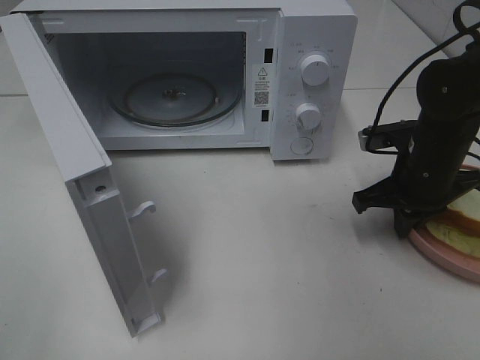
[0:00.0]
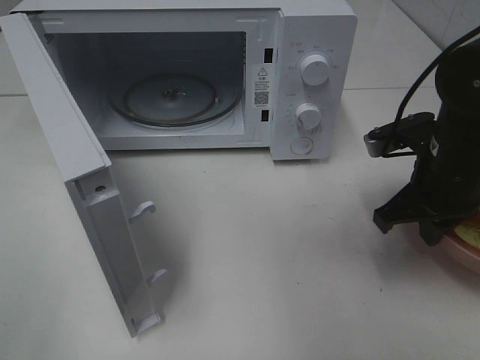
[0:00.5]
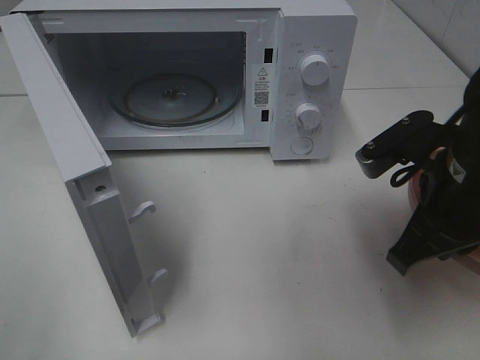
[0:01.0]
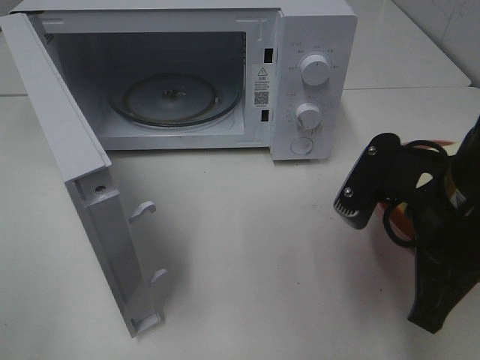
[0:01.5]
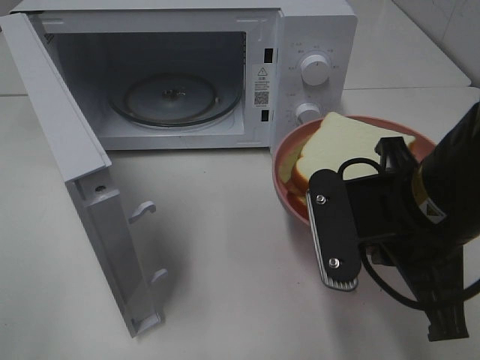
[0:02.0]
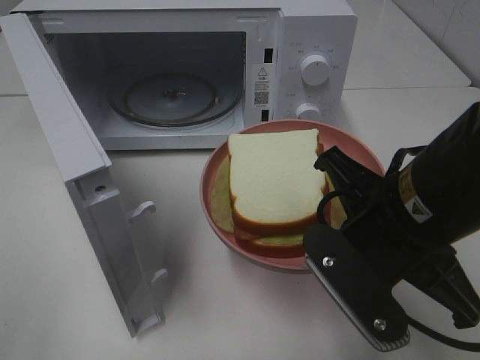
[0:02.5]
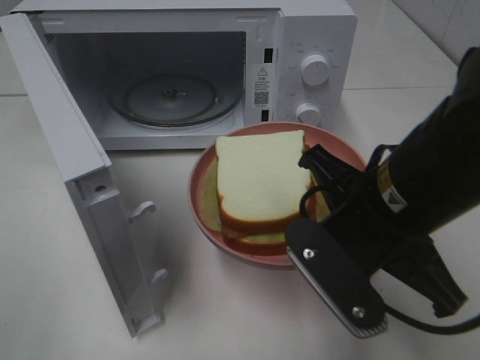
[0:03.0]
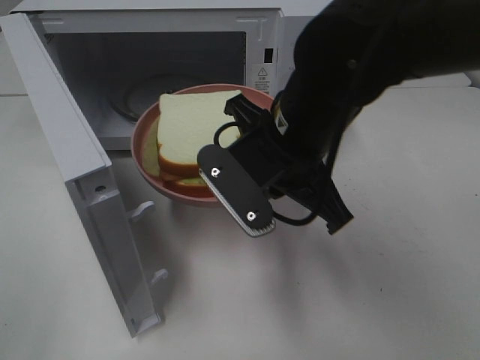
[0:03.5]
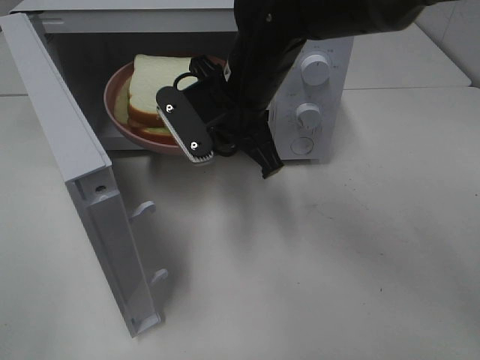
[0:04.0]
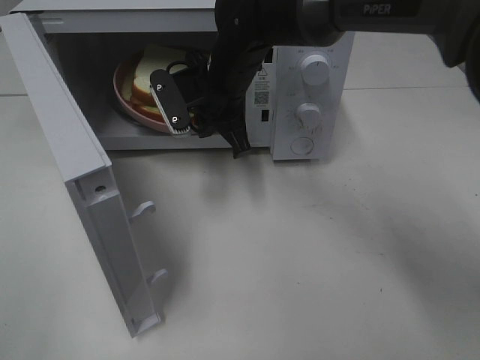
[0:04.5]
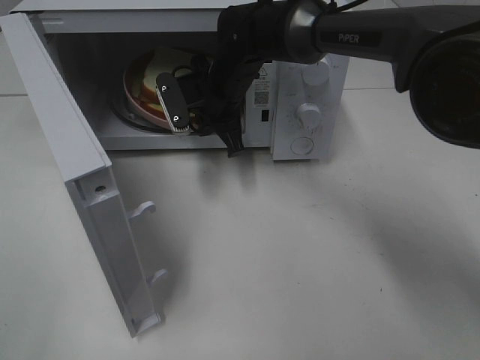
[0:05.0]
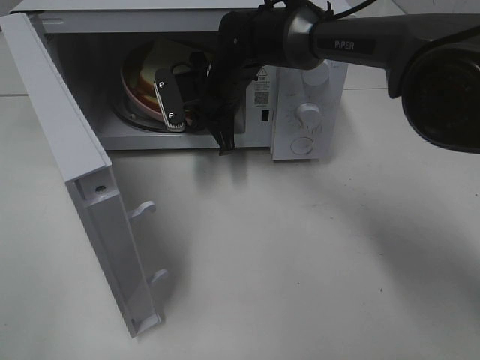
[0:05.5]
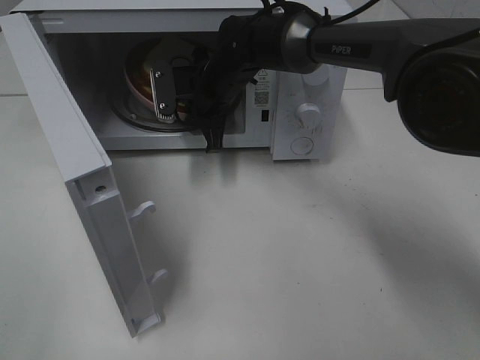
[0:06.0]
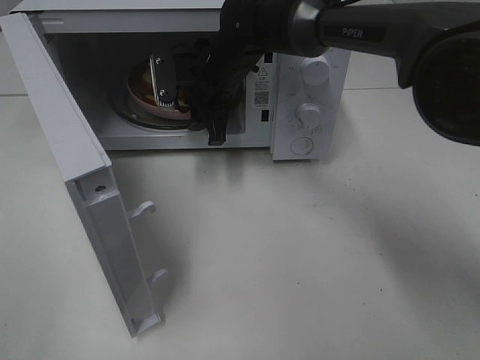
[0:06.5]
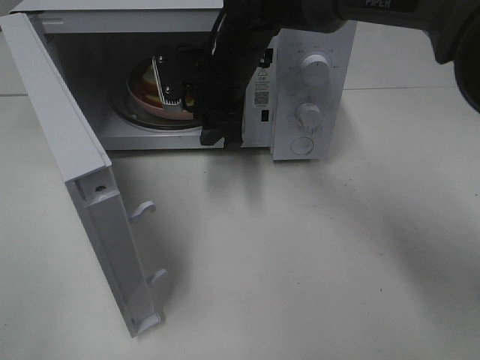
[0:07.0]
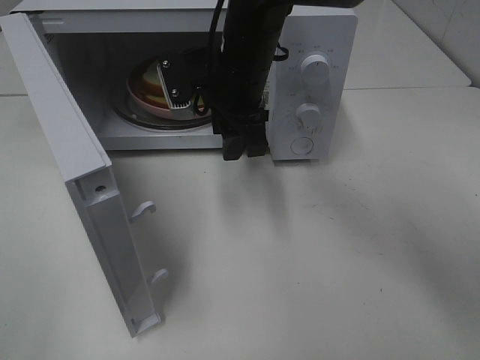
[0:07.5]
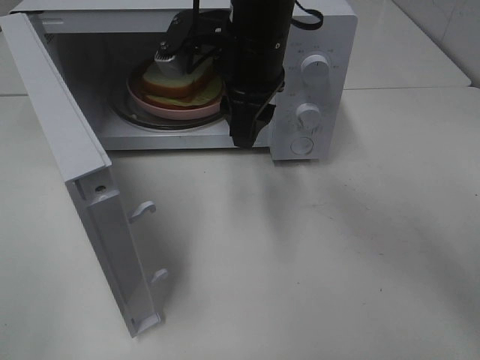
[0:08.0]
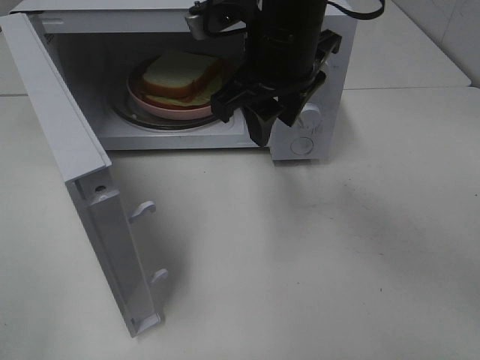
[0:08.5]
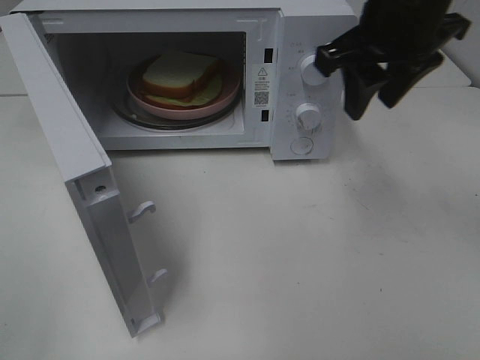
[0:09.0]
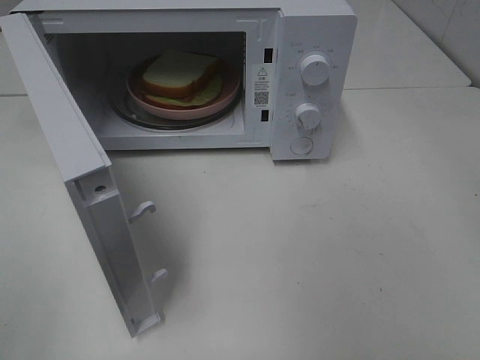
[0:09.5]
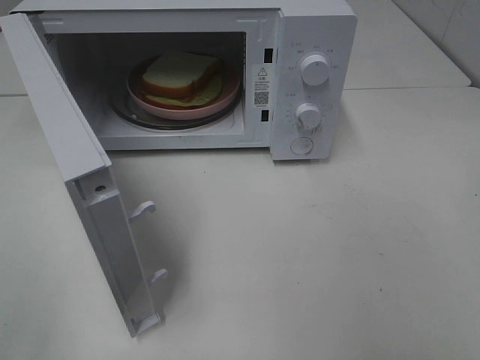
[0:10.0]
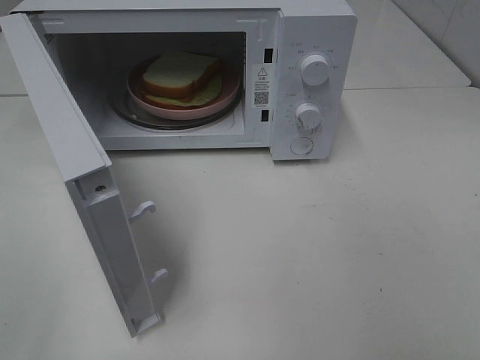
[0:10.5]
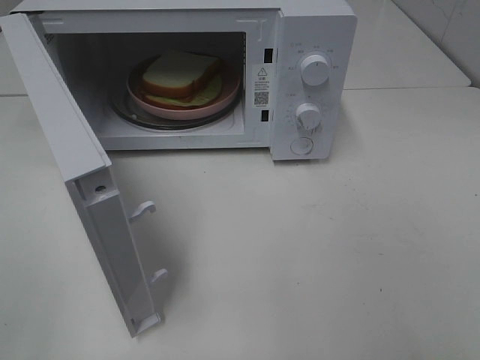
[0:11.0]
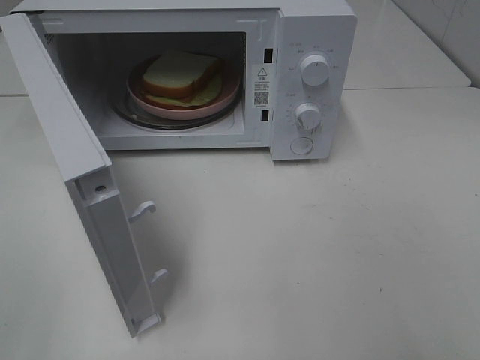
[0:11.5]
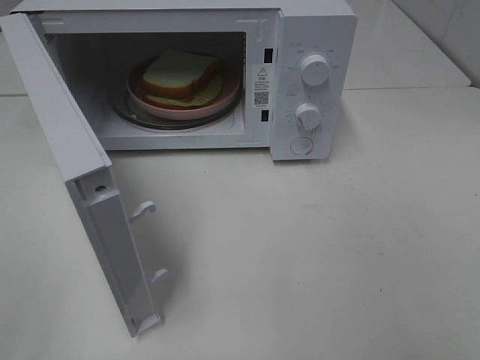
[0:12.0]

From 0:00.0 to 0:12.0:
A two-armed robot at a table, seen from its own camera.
Task of the whole recording: Heat Sandwich.
Step, from 0:00.0 to 0:07.0: Right hand: place the plate in the microwave.
From 0:00.0 to 0:02.0: The right gripper heads backward, to the left and upward, covering some 20 cm.
From 0:02.0 to 0:04.0: The right gripper goes roughly 20 cm forward and to the left.
From 0:04.0 to 0:06.0: The right gripper shifts about 15 cm forward and downward.
From 0:06.0 to 0:08.0: The right gripper shifts approximately 15 cm upward and backward, and opens.
From 0:08.0 to 0:10.0: The right gripper goes roughly 35 cm to the right and backward.

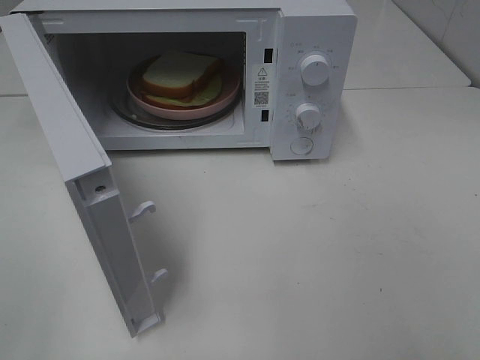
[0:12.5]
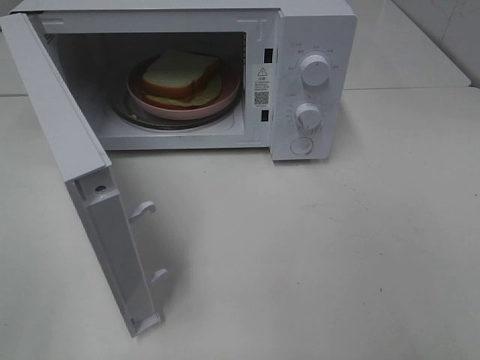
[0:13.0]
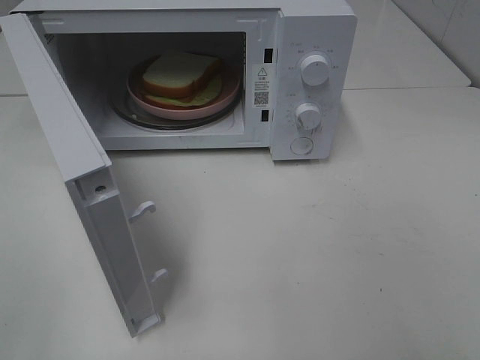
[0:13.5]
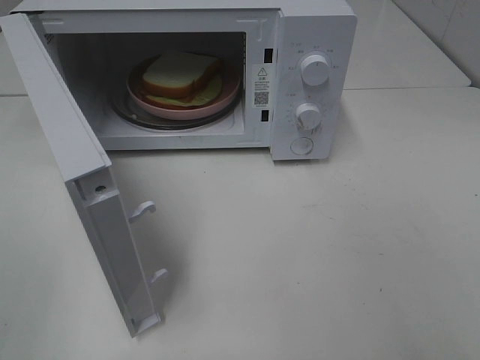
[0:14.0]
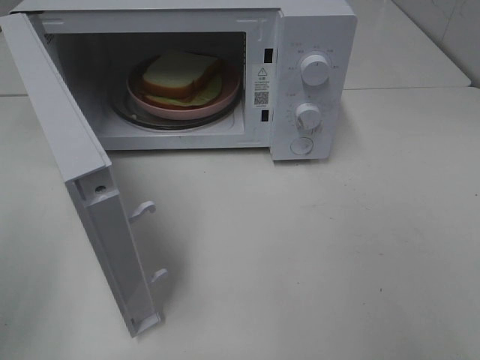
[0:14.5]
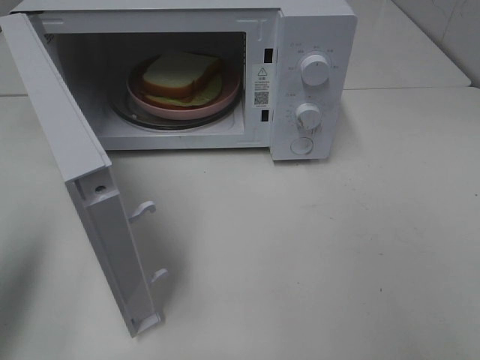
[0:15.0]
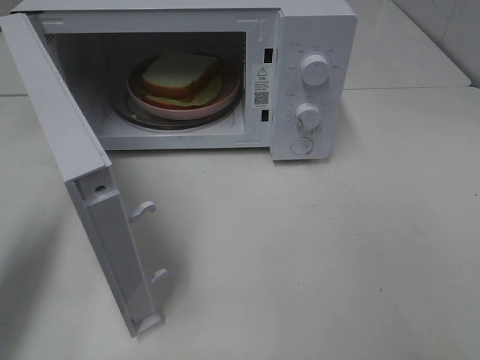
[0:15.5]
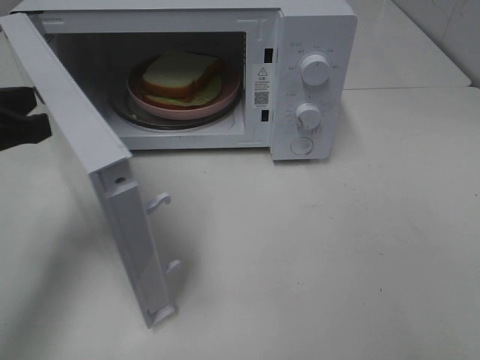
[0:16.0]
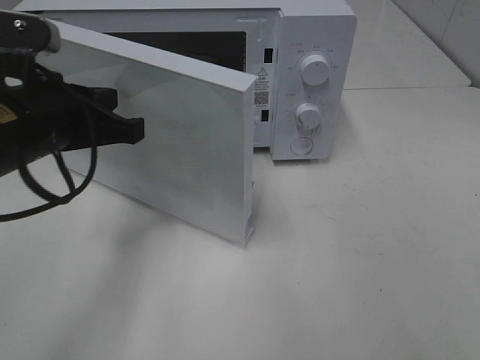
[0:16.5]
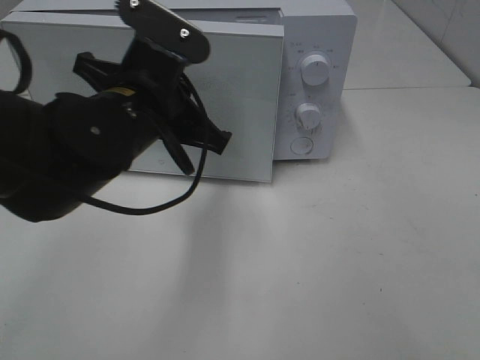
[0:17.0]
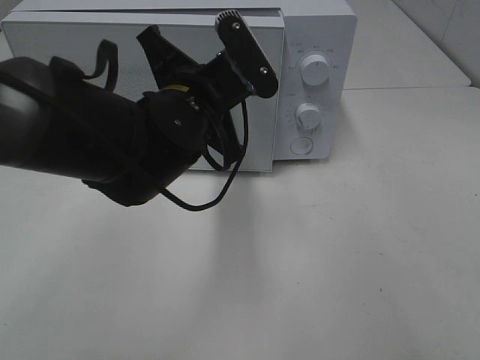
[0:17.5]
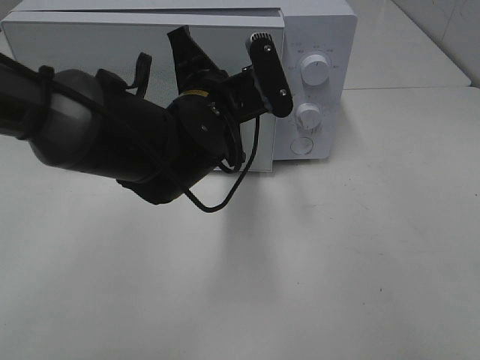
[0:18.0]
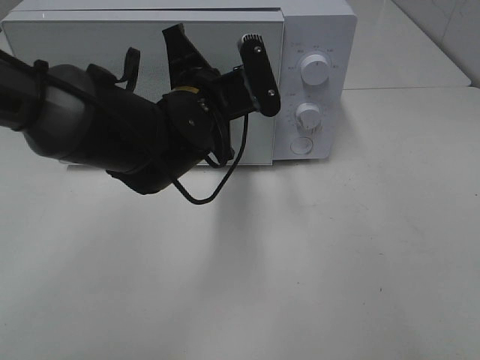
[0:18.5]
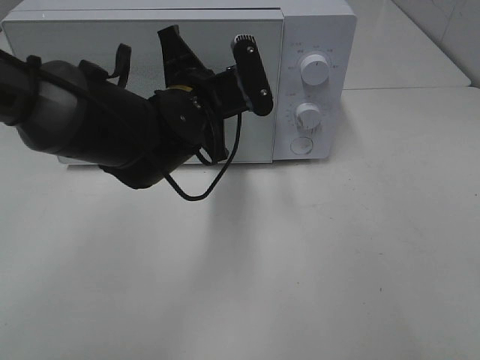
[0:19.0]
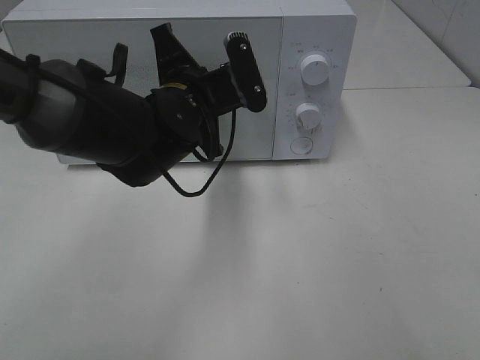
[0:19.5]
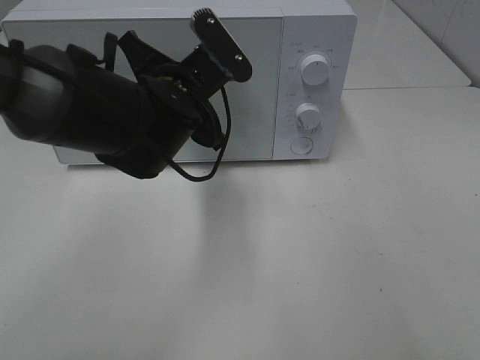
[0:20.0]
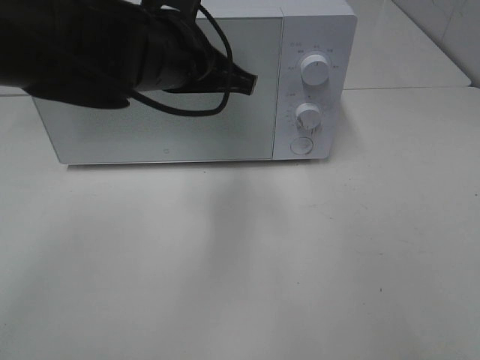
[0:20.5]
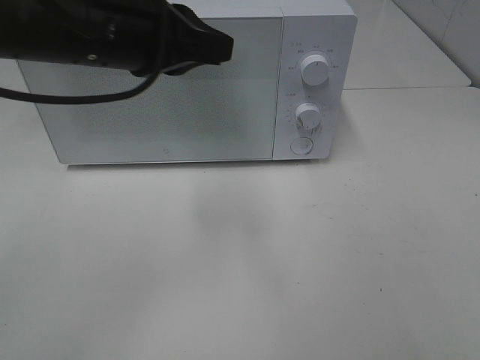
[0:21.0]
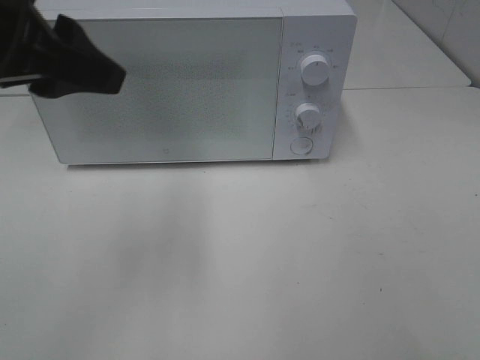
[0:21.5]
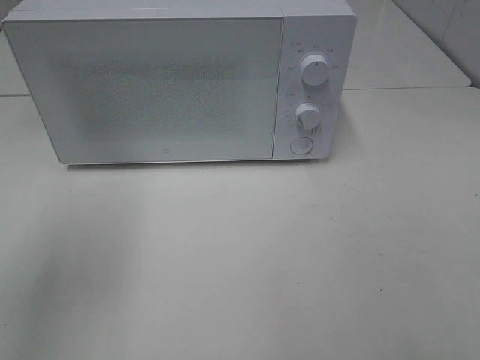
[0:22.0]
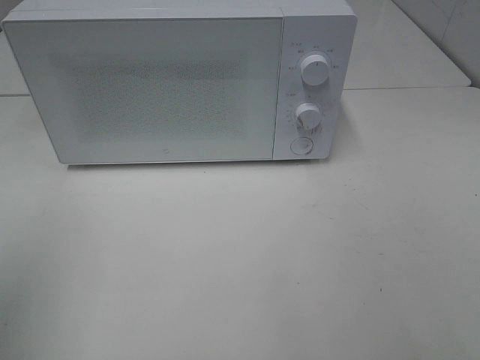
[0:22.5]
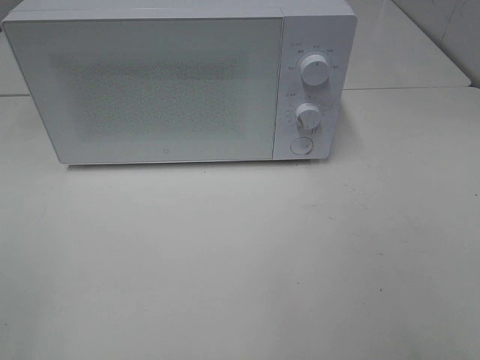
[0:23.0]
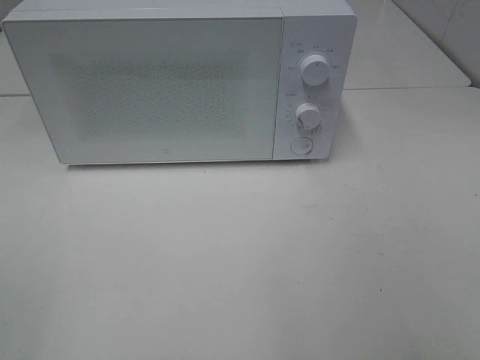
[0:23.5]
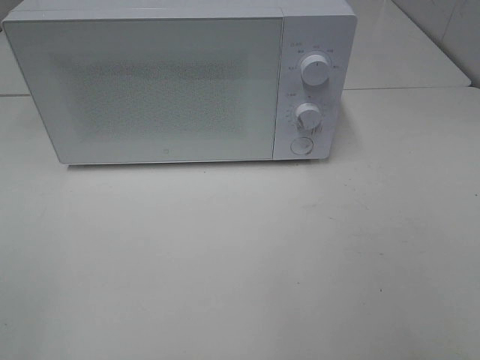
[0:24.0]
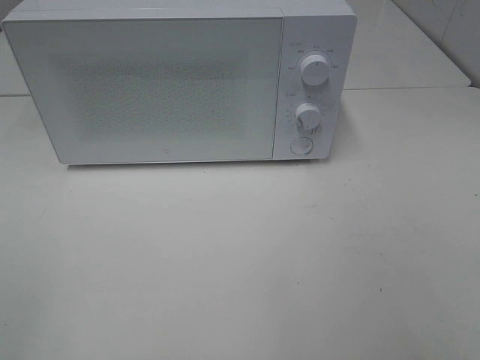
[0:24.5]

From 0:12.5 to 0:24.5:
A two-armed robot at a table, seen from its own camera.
Task of the whole recording: Heat Sandwich.
Step, from 0:12.5 to 0:20.0: Left hand: close the microwave door.
From 0:14.5 to 0:16.5: The left gripper heads forward, to the right and downward, covering approximately 25 cm, and closes up.
From 0:16.5 to 0:18.5: The left gripper shifts some 15 cm to the right and forward.
From 0:18.5 to 0:20.5: The left gripper moves upward, about 5 cm.
From 0:20.5 to 0:22.5: The left gripper travels to the left and backward by roughly 35 cm, and opens.

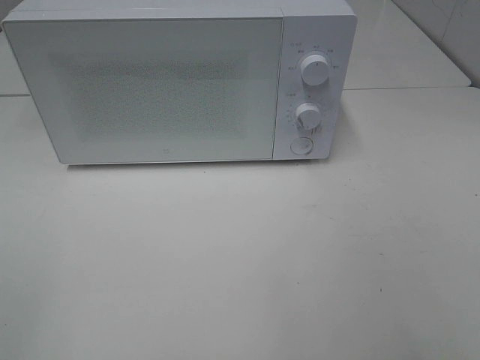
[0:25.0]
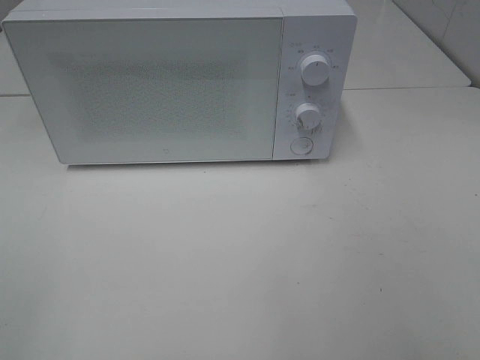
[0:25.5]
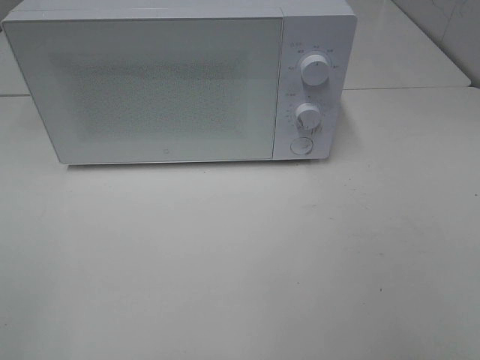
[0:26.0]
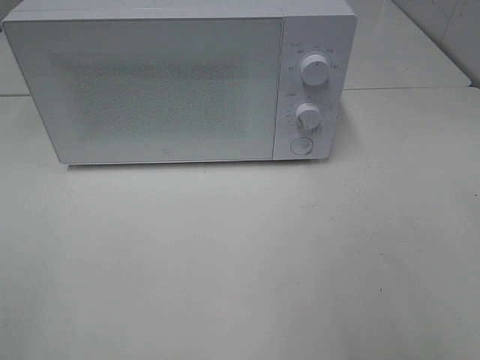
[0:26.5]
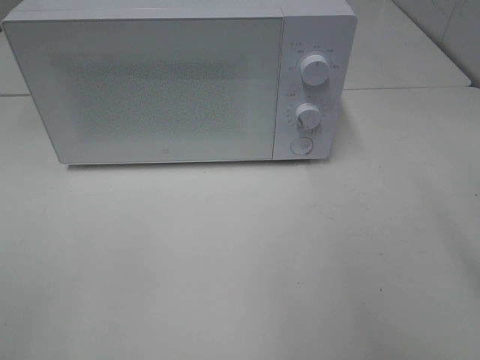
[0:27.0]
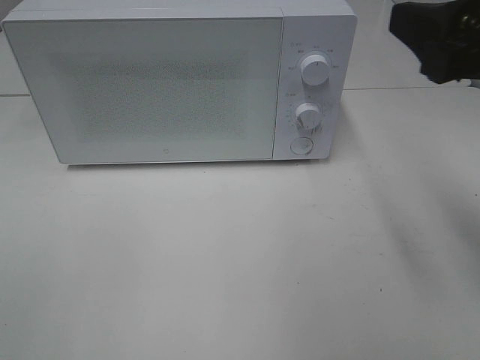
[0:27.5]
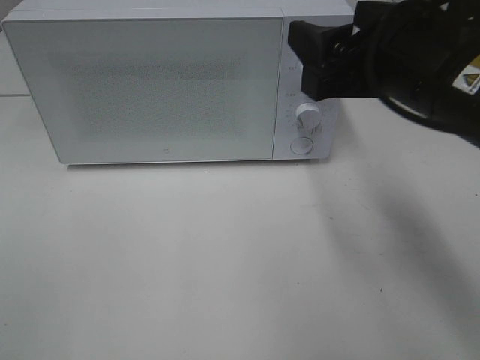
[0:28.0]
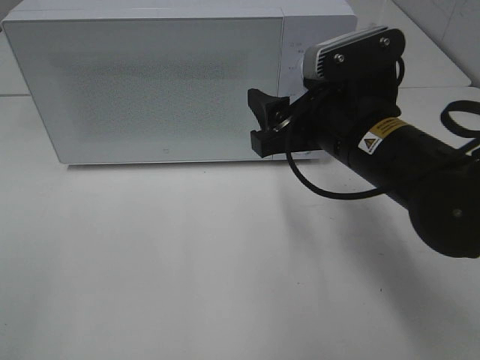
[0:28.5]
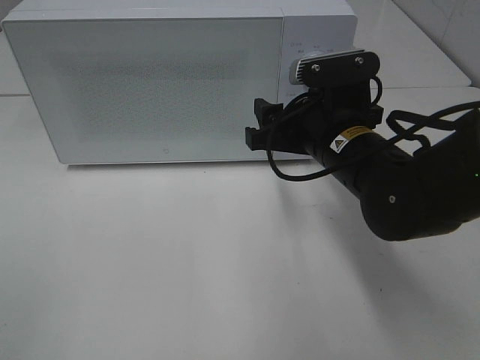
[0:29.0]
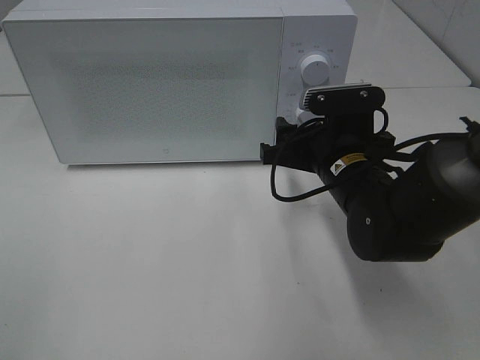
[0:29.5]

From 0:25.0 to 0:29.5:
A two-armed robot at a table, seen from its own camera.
Task of the whole recording: Heat Sandwich.
From 0:27.0 to 0:29.5: The right gripper travels downward, forward and to the left by about 30 cm.
